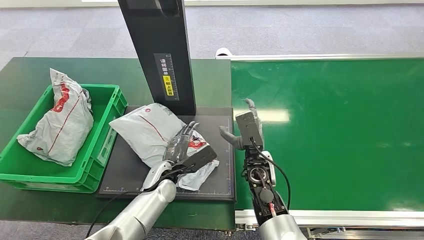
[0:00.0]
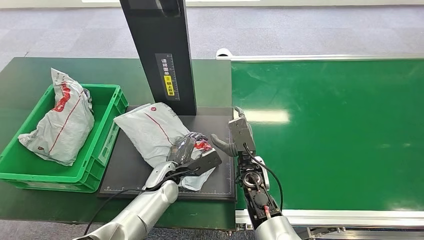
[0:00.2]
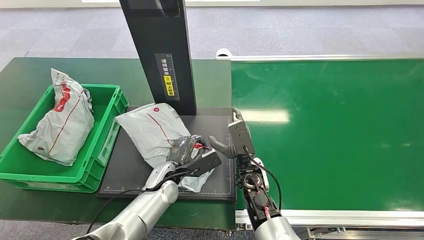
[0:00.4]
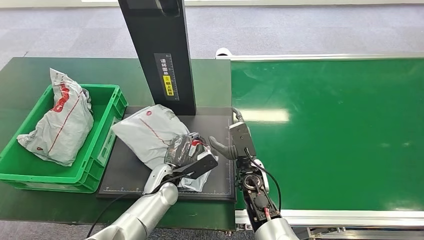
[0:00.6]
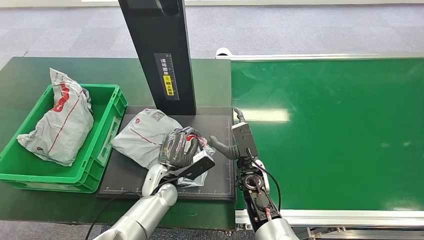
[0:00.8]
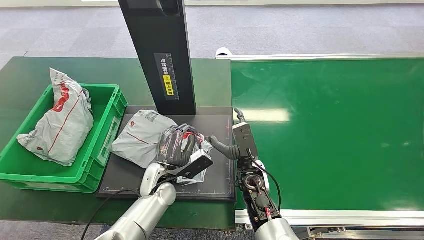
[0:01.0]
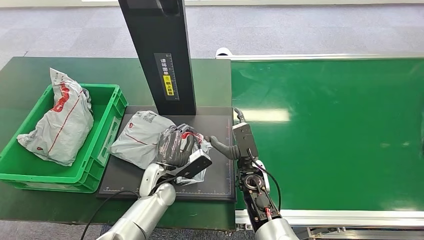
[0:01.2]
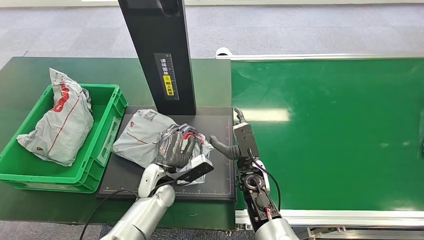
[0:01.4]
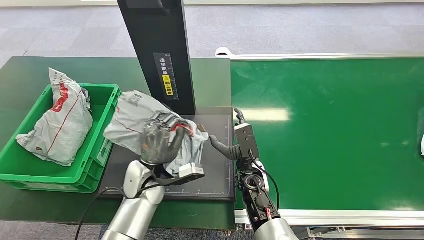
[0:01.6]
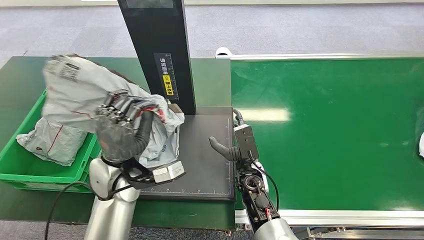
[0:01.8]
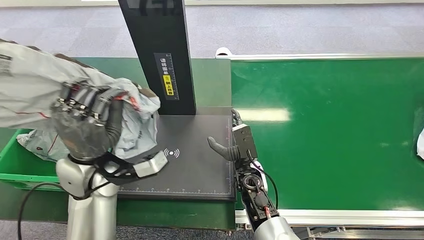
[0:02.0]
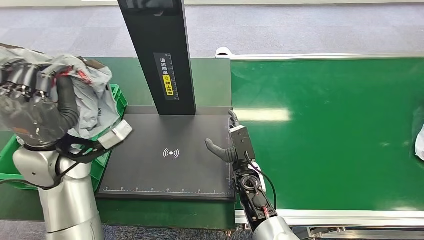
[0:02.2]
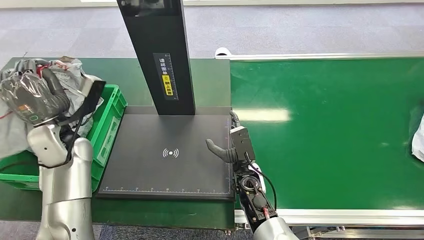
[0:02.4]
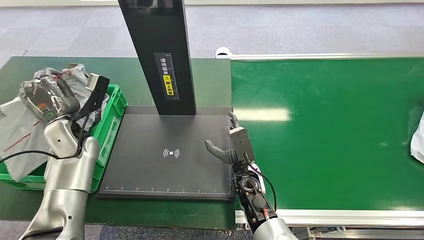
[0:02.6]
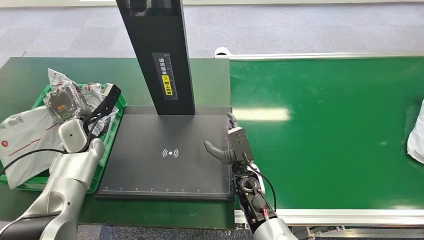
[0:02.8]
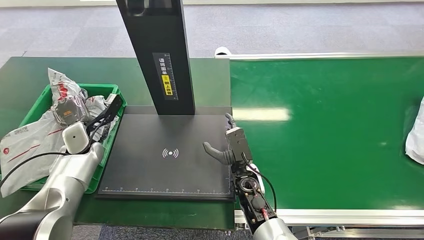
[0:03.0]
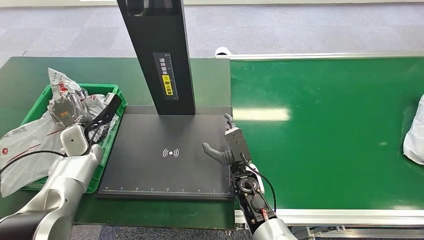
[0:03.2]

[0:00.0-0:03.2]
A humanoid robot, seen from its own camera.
Step, 0:00.0 to 0:01.8: Pick up the package from the inbound machine.
Step, 0:02.0 to 0:03.2: Place the package into the parcel locker.
0:00.0 to 0:01.6: The left hand shifts by roughly 5 cm.
